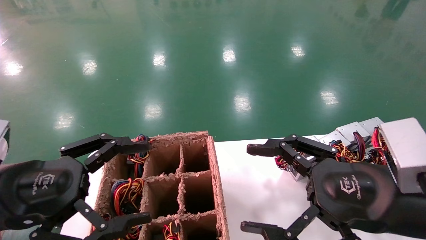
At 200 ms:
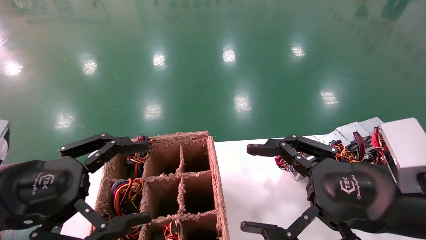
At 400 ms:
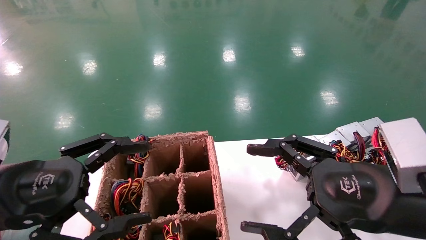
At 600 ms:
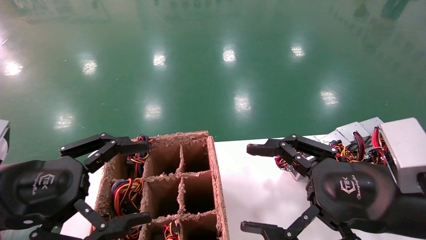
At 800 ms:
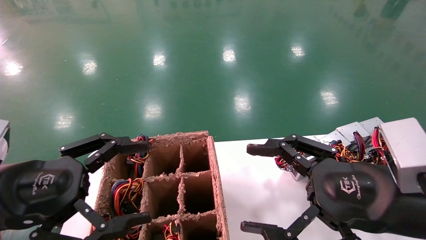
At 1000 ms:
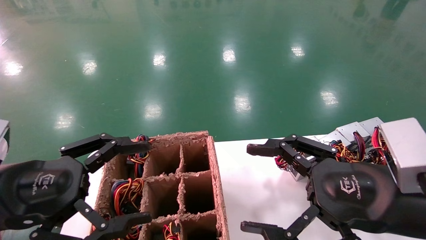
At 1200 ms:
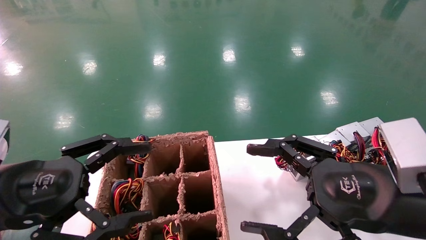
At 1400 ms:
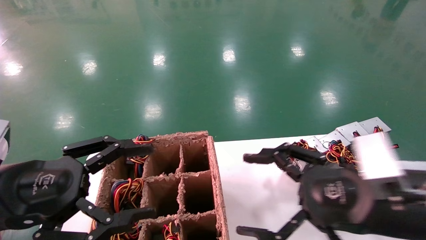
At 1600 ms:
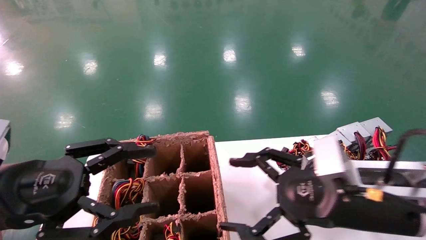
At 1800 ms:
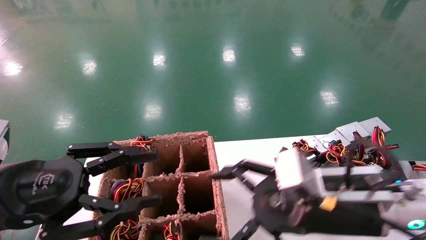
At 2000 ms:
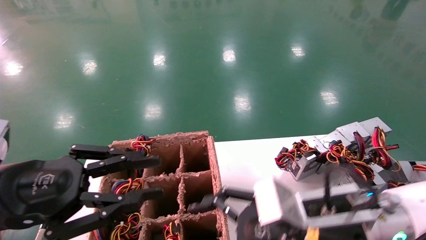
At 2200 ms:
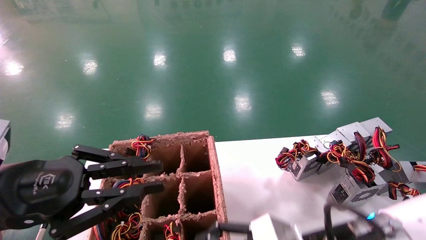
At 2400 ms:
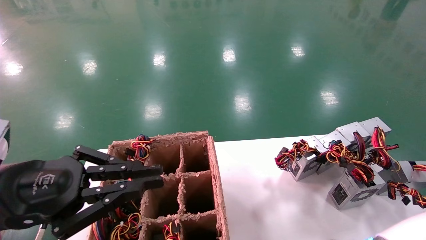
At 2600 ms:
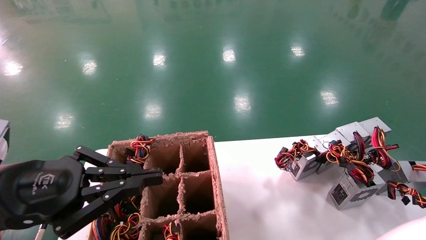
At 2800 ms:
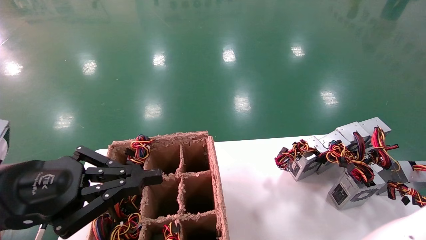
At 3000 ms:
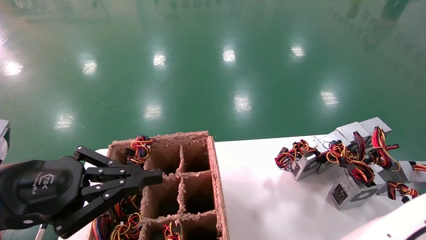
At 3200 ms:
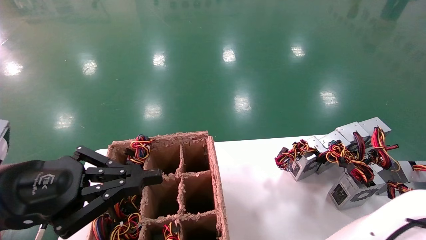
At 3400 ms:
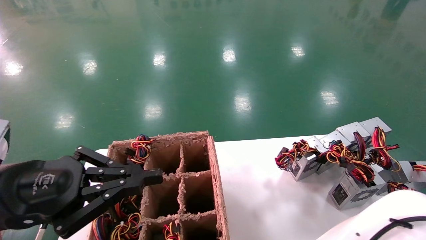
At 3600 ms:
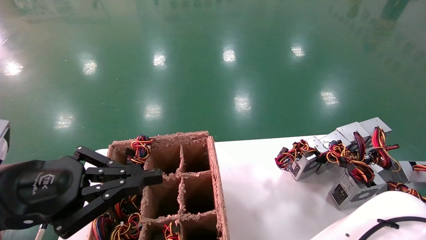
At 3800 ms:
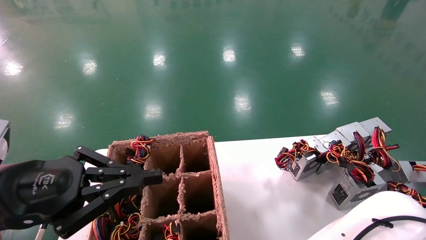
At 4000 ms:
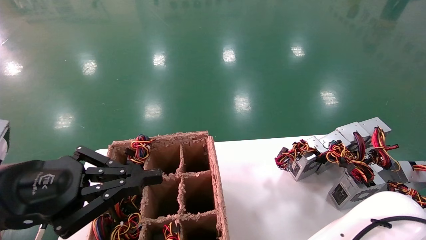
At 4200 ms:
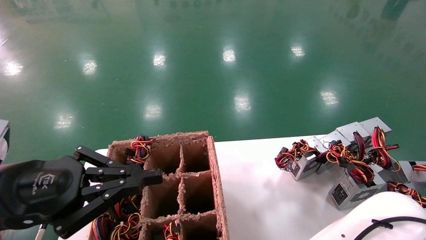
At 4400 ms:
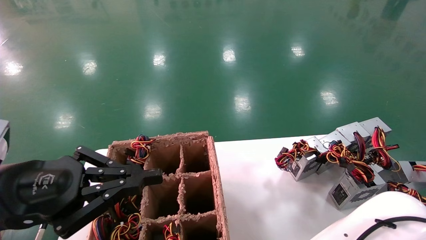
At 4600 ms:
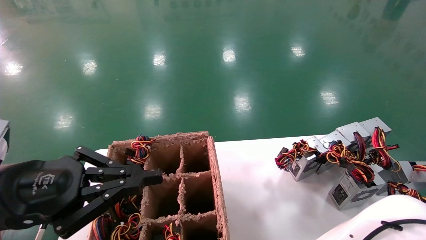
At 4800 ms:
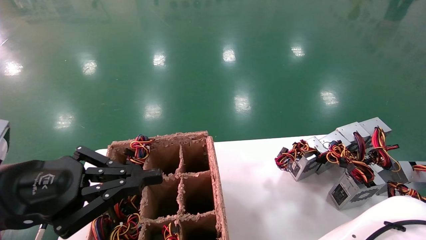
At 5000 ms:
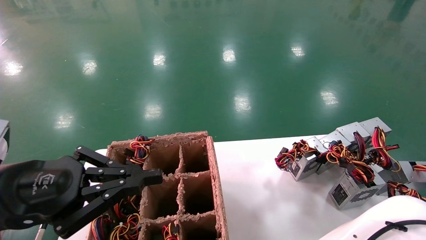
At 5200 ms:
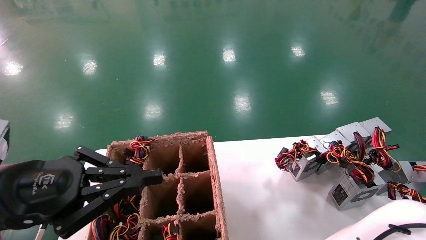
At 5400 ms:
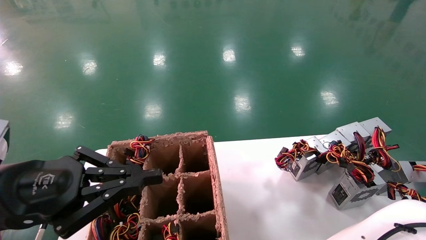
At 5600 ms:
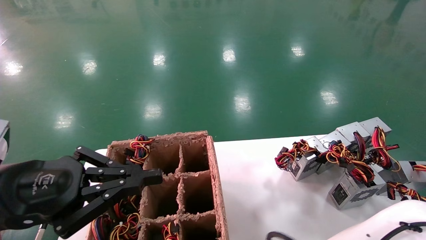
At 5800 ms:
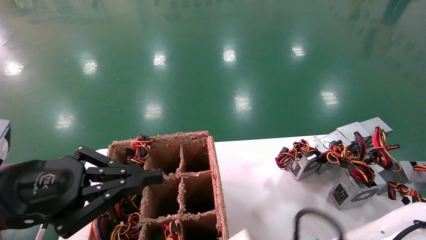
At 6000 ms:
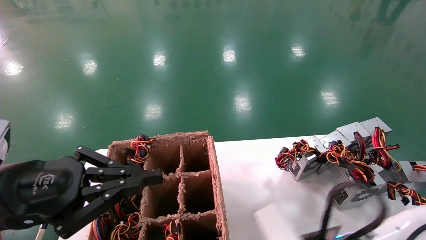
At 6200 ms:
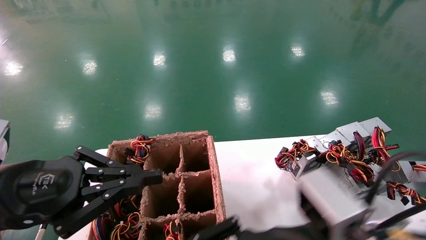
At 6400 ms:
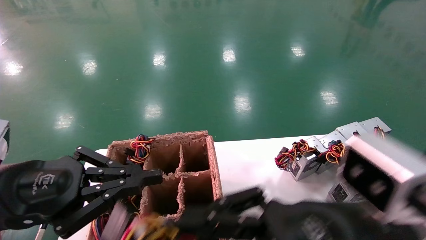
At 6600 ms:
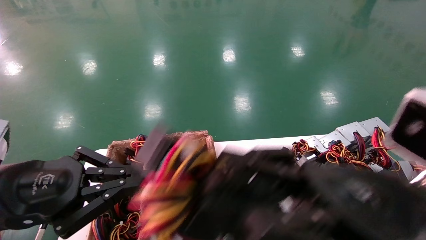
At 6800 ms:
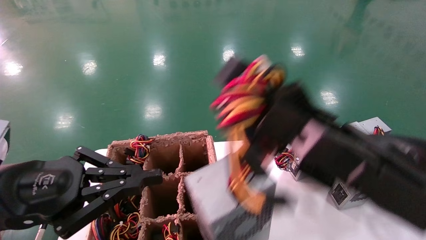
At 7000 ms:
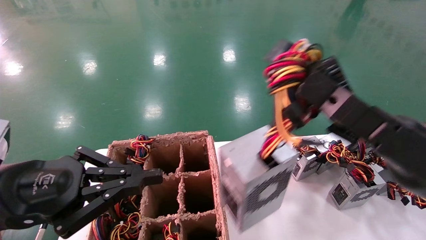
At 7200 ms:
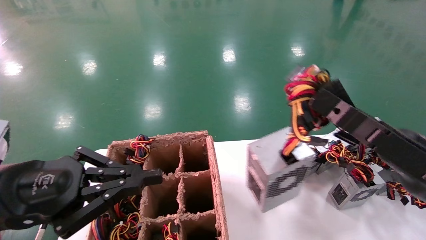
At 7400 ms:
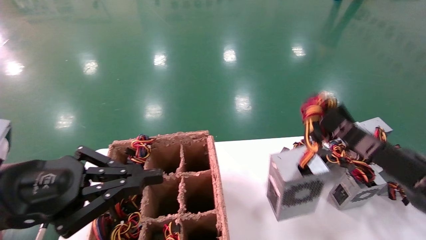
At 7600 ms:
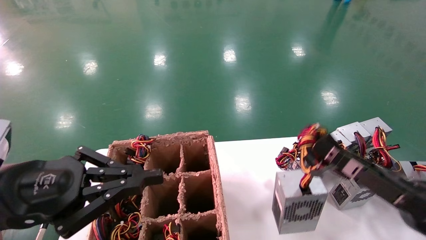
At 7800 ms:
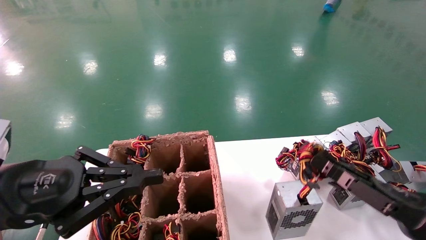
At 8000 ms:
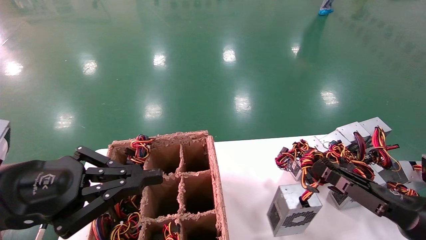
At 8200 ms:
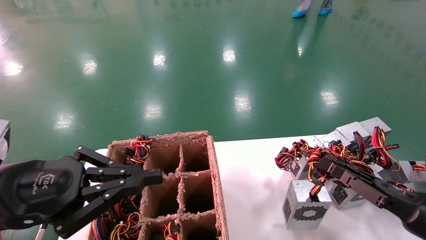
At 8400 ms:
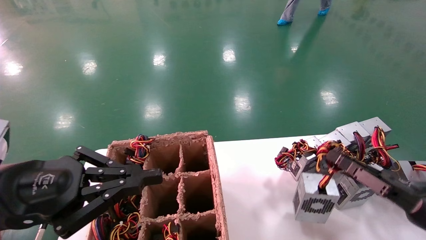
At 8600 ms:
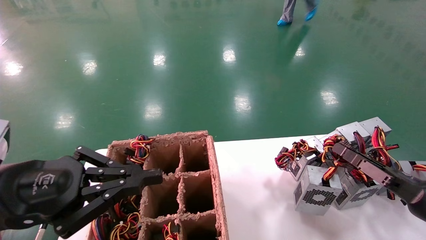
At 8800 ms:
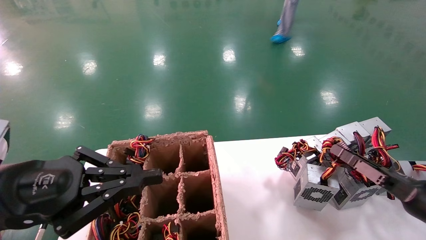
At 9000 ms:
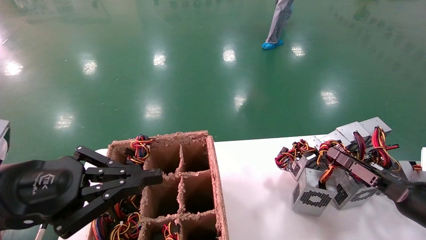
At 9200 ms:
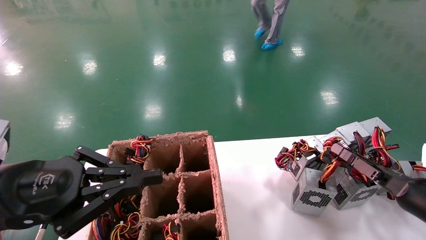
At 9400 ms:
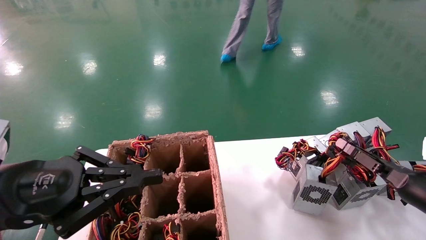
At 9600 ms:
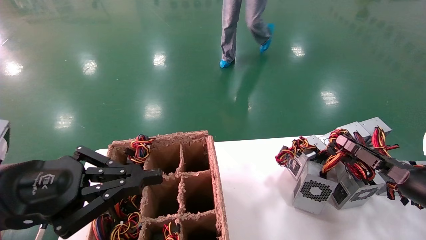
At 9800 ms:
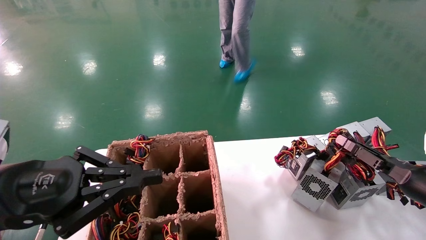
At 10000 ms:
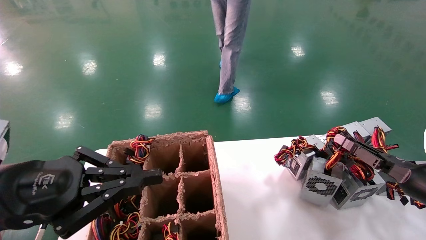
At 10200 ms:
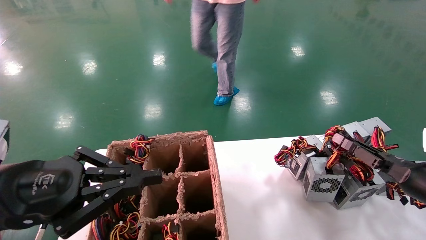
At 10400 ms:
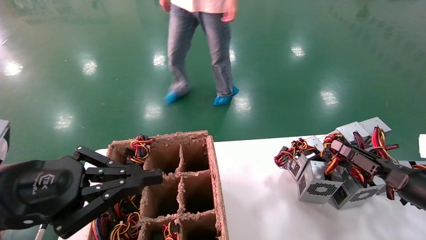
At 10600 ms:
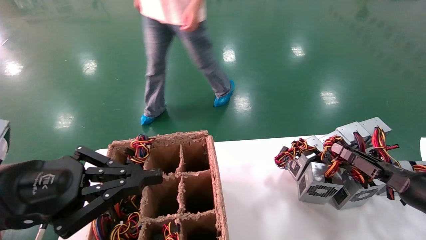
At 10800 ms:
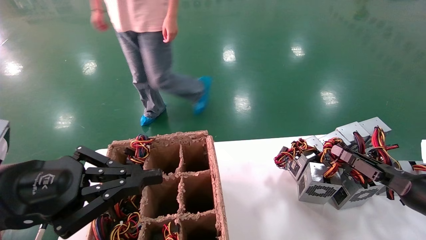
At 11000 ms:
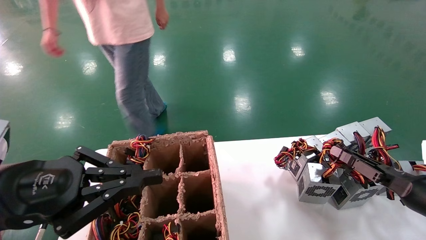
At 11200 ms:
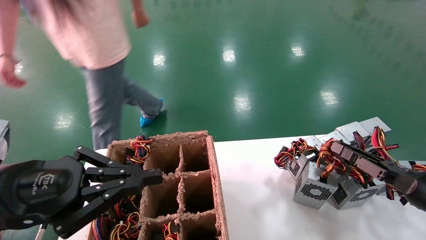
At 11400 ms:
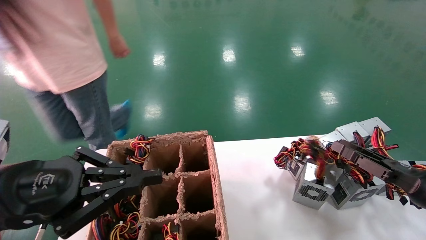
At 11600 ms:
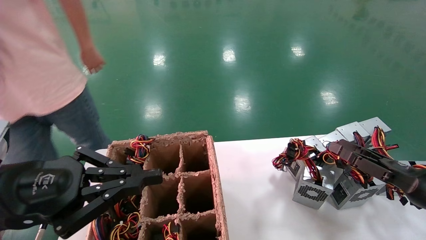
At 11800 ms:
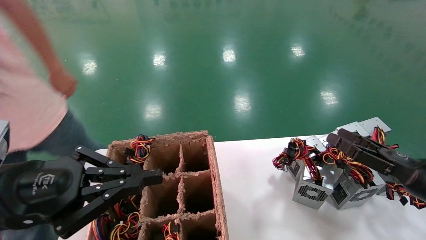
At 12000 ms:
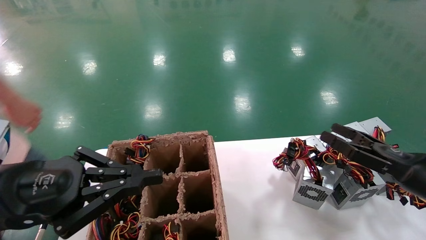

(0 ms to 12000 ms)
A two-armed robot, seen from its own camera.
Step, 1600 ms - 5000 ms: Grab the main unit power supply from the containment box.
Step, 5200 ms - 11200 ms: Place the main unit power supply in the designated area.
0 ms - 1600 ms: The right gripper ends up some 5 cm from where it was.
1600 ms - 3000 ms: The right gripper heads downward and to the left, covering approximately 15 cm. The left gripper closes.
3000 ms - 4400 ms: The grippers stay close to where they were, moving slightly.
4400 ms - 6000 ms: The right gripper shifts roughly 5 cm upward, and closes its fingers.
6000 ms - 7600 ms: The right gripper shifts approximately 20 cm to the right.
7600 ms - 9000 ms: The right gripper heads to the right, forward and downward, covering approximately 10 cm.
9000 ms - 10400 ms: The grippers make only small movements.
10400 ms - 12000 ms: The right gripper changes place by about 5 cm, and opens up.

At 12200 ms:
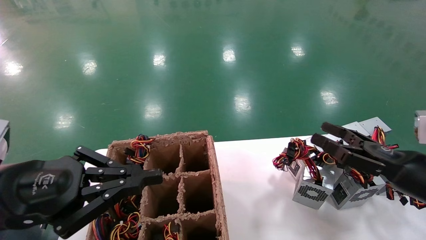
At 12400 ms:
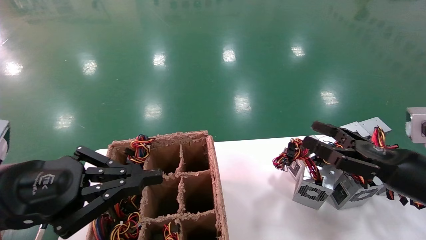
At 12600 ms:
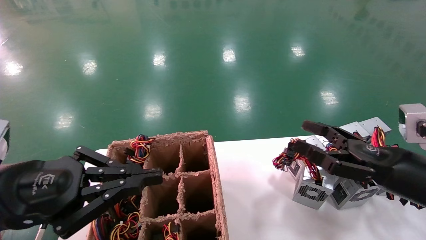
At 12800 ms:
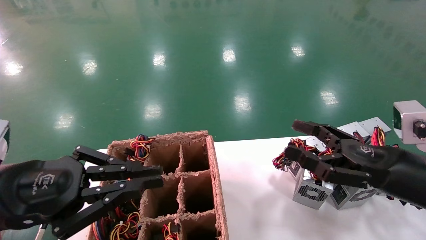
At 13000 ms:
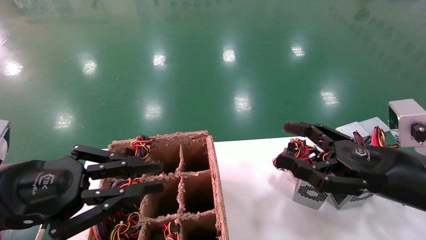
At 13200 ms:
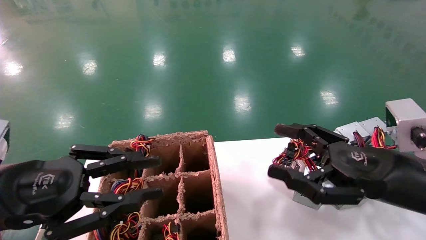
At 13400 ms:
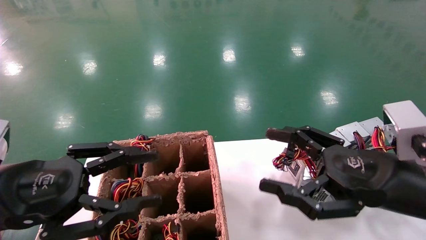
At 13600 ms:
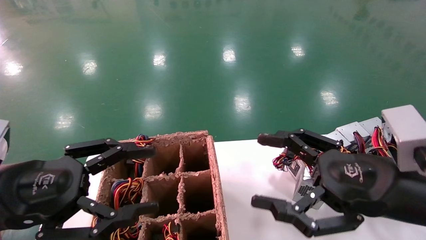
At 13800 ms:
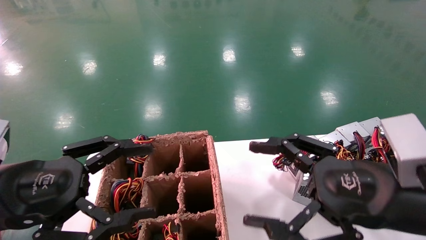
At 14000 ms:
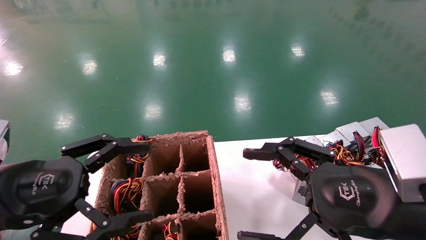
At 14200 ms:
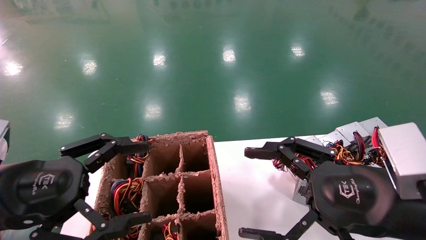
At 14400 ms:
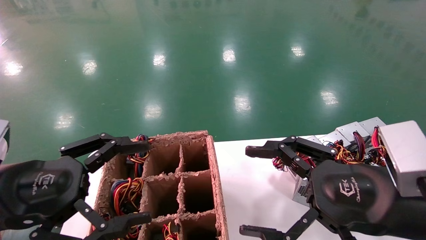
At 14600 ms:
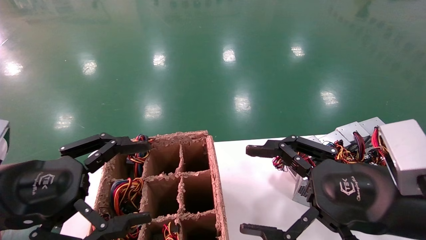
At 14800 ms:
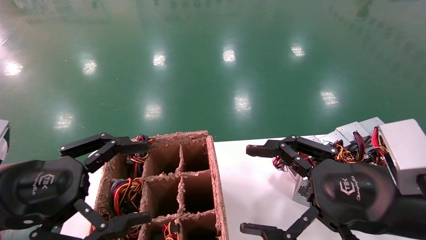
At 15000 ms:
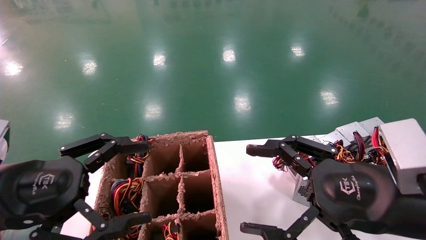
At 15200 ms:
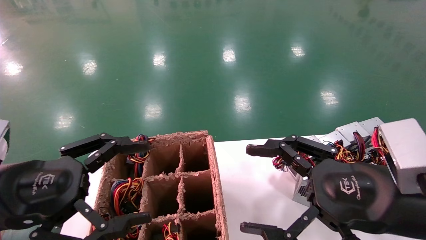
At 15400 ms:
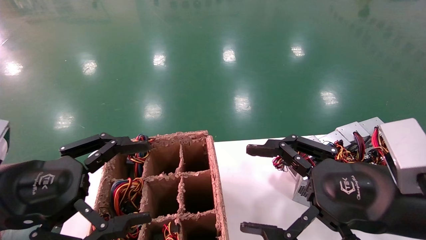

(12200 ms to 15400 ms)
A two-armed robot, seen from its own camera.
12200 ms - 13800 ms: The left gripper opens up. The right gripper heads to the left, backward and upward, covering roughly 15 cm.
13800 ms - 15400 ms: Both grippers stay put.
